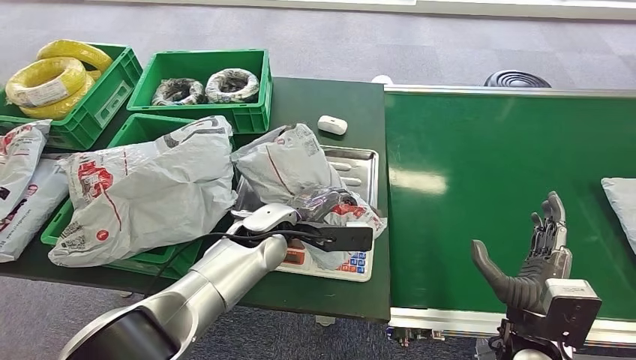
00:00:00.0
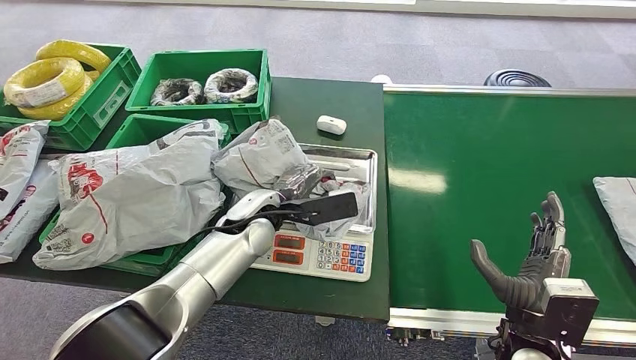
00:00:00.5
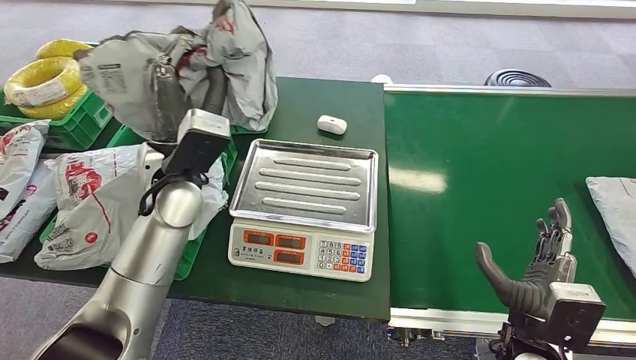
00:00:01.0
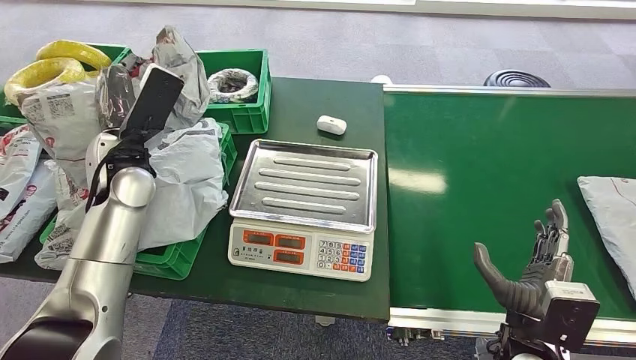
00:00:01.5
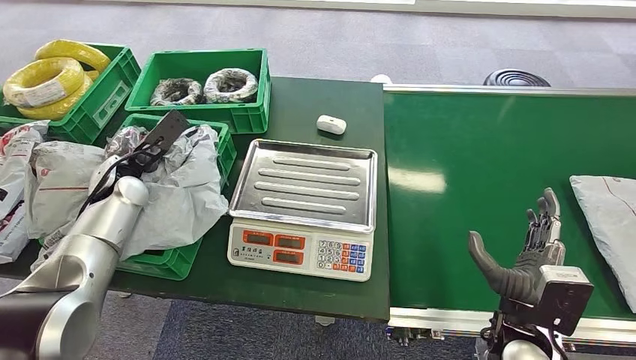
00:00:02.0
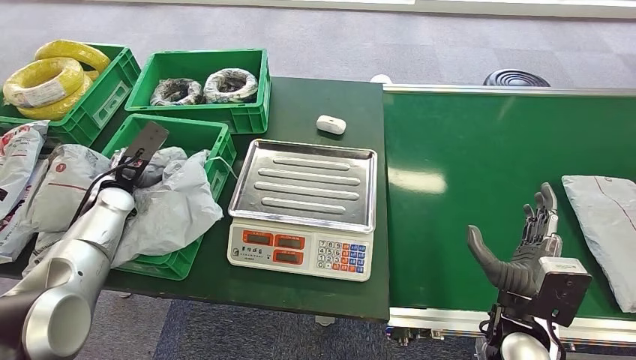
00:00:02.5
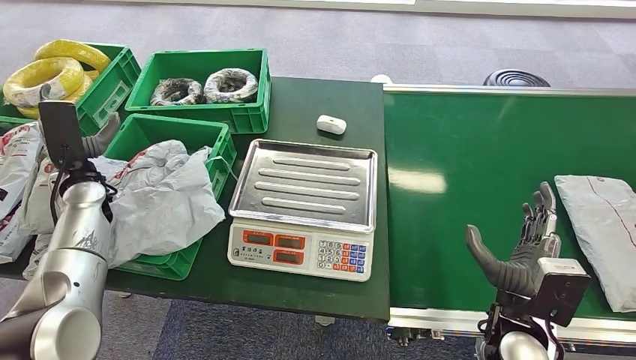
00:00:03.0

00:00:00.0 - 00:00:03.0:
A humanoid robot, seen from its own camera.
Task of the whole recording: Weigh the package on the weighing device and place it in the left basket.
Step, 00:00:01.5 - 00:00:03.0: Place the package into the parcel locker.
